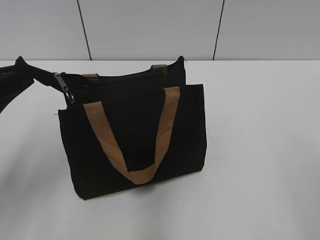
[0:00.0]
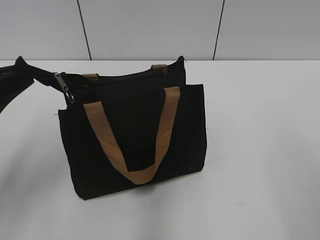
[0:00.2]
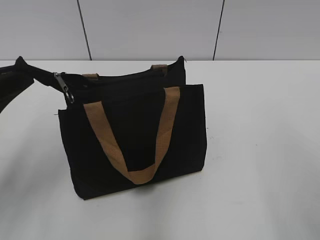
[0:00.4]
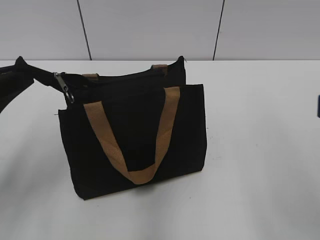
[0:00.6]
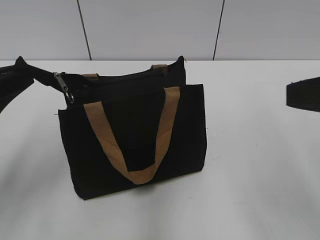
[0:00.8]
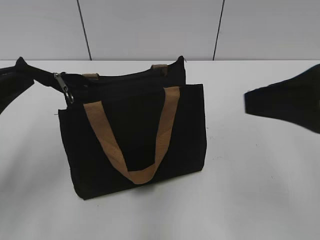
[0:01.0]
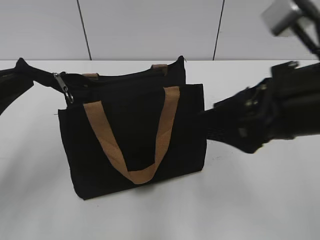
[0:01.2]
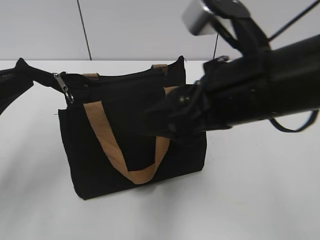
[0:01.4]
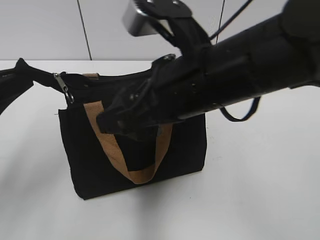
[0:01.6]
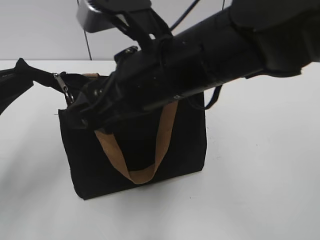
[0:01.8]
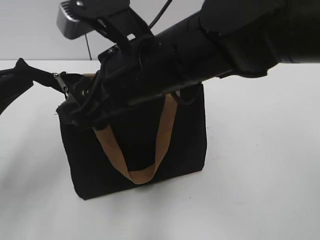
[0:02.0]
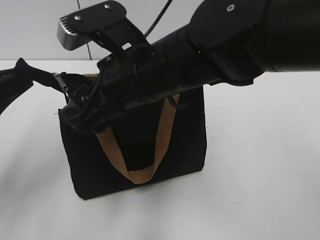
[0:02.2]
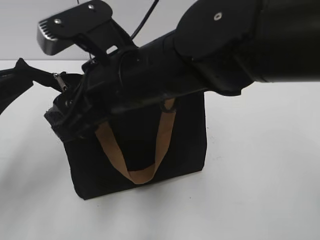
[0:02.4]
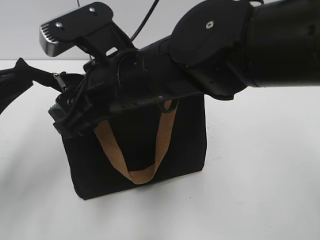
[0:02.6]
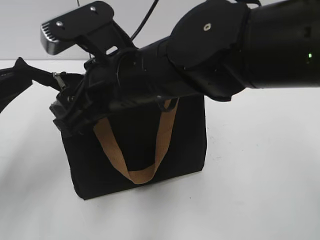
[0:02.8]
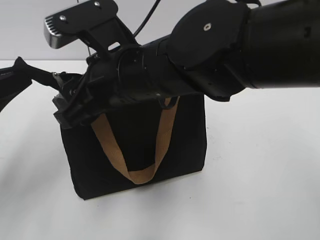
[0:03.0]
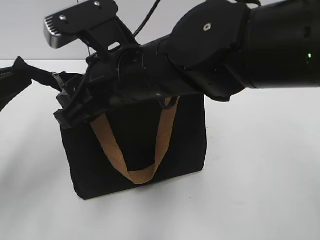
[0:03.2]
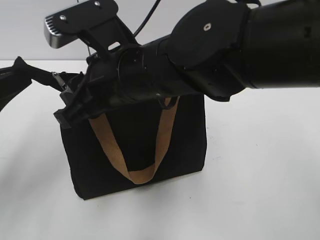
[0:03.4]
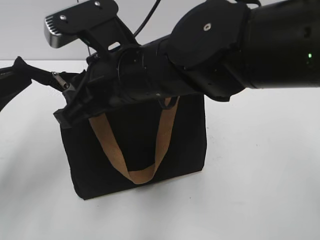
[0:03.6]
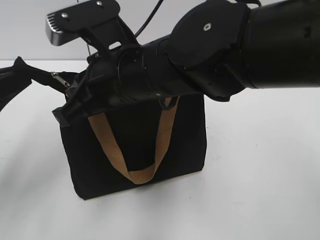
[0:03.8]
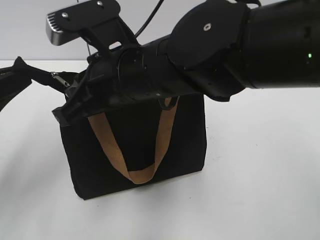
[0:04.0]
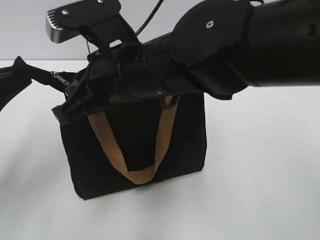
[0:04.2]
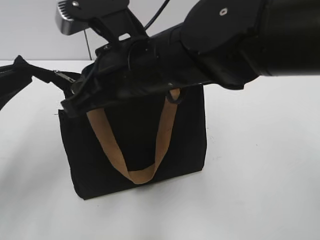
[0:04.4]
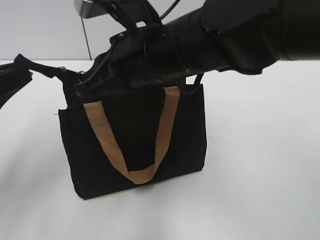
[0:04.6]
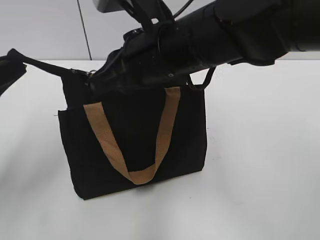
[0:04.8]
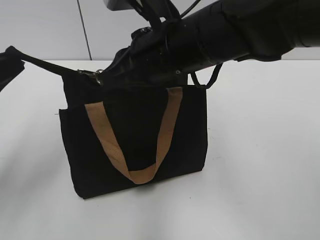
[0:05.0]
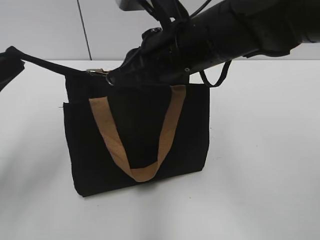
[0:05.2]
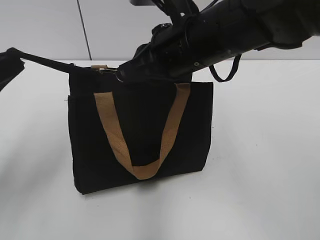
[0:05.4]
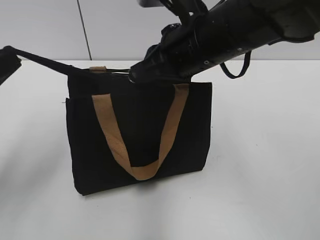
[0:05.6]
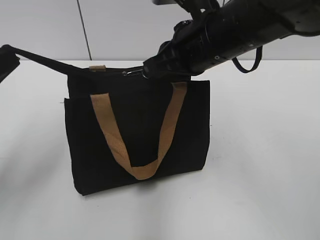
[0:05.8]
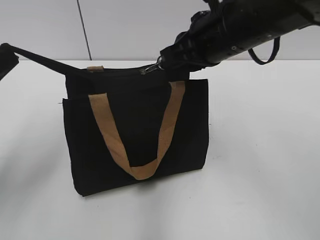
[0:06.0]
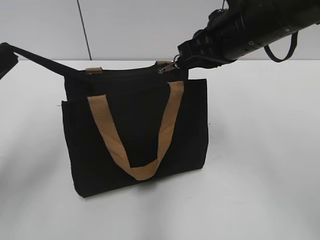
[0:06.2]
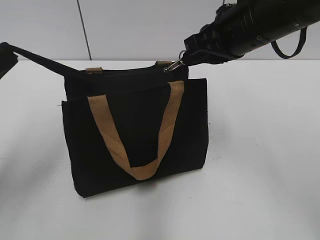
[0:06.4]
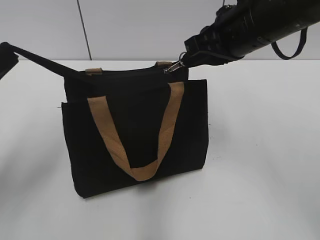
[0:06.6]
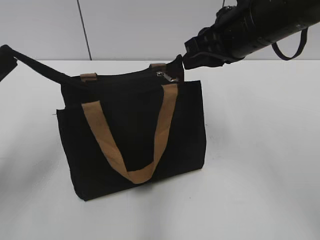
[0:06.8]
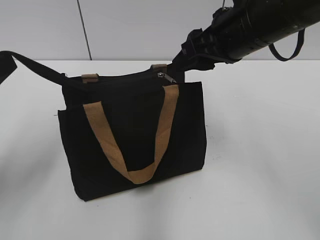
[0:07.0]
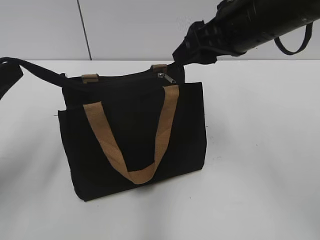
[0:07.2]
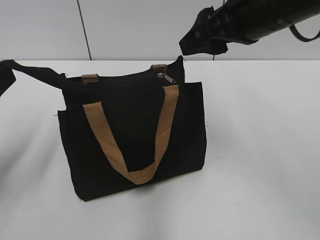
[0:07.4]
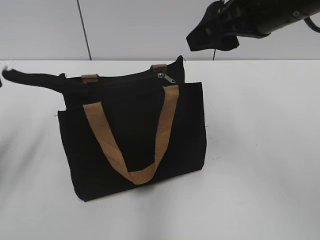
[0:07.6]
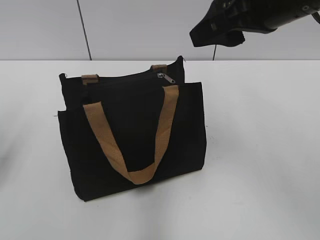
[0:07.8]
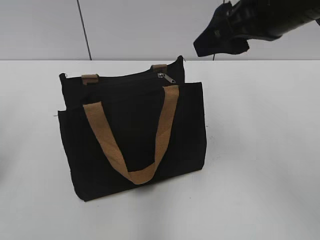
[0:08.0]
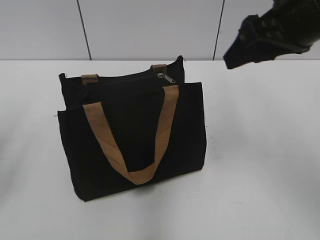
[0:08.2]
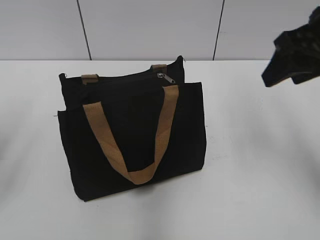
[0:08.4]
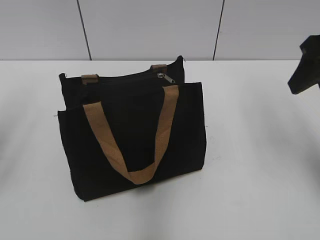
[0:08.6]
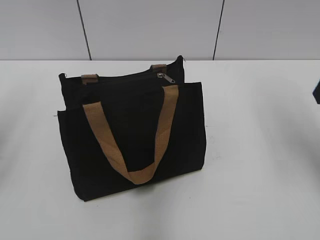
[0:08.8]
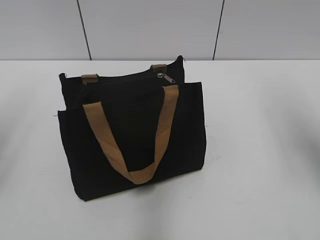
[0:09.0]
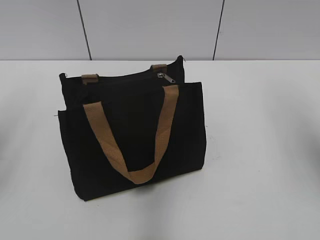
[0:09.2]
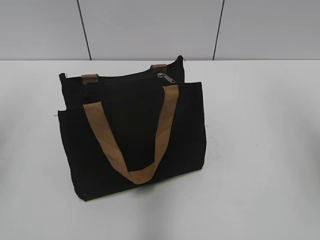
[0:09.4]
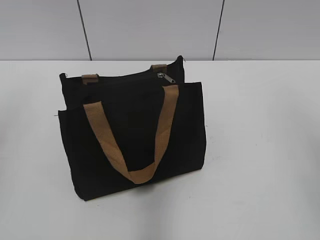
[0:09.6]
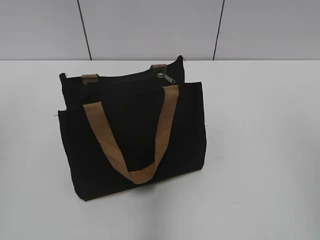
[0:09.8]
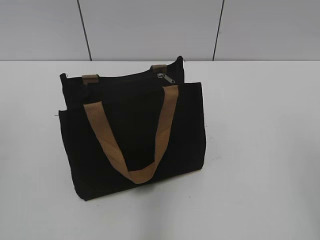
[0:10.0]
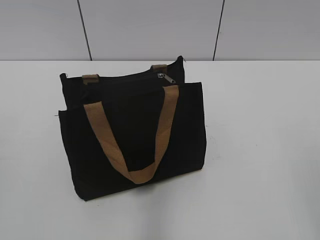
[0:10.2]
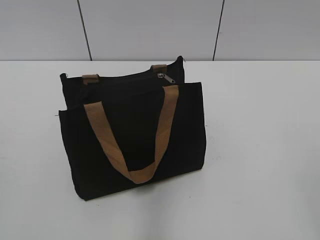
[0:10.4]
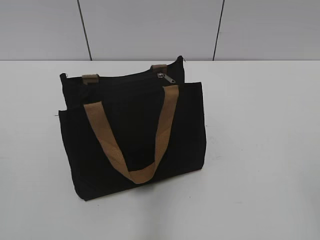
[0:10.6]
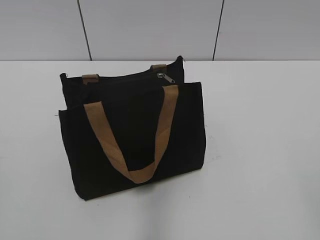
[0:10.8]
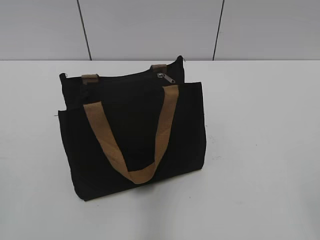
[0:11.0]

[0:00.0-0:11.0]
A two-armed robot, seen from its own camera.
Step, 0:00.0 to 0:06.8: Zip up the bag with your right hand.
Step, 0:07.0 to 0:07.4: Grab the zipper with your left hand.
0:00.0 to 0:01.6: The right gripper is displaced to the left and forward by roughly 30 cm.
0:01.6 to 0:03.2: The right gripper moves to the left, roughly 10 cm.
0:03.2 to 0:04.8: The right gripper closes up.
0:04.8 to 0:06.2: The right gripper travels to the right by about 10 cm.
0:06.2 to 0:07.8: The right gripper is displaced upward by about 5 cm, and opens its fingers. The left gripper shifts by roughly 5 cm, and opens its fingers.
0:07.8 to 0:09.4: The left gripper travels upward by roughly 10 cm. Meanwhile the right gripper shifts roughly 15 cm to the right and backward.

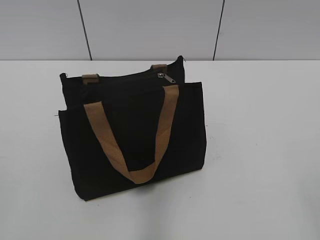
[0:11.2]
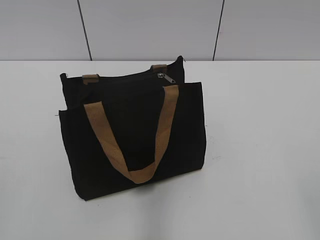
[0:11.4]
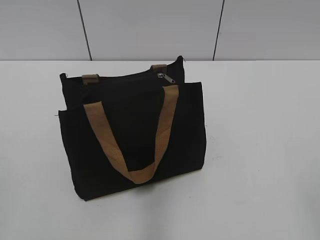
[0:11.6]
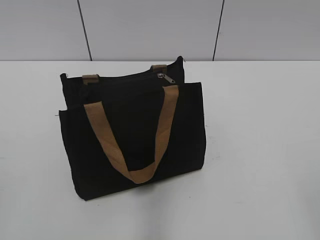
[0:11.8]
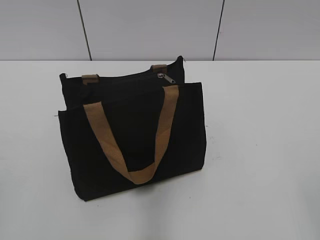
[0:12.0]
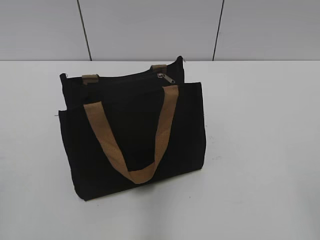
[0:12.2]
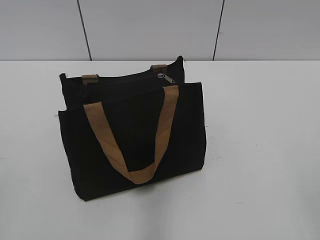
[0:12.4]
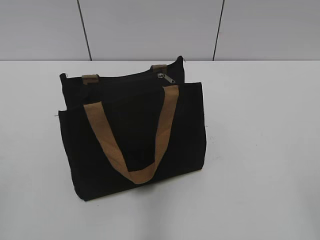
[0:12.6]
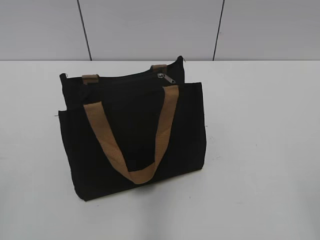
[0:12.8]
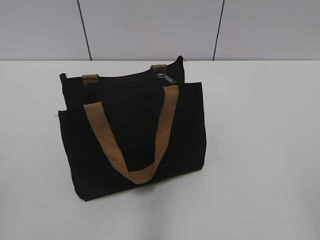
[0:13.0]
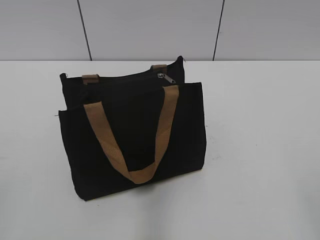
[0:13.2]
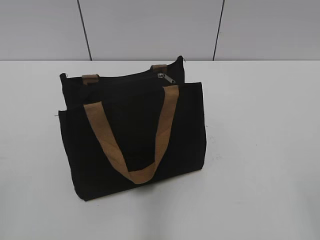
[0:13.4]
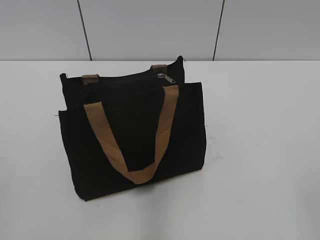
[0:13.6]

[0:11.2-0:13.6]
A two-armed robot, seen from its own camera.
0:11.2 to 0:12.4: Both grippers stay about where they are.
0:12.4 to 0:13.6: Both grippers stay about where they are.
